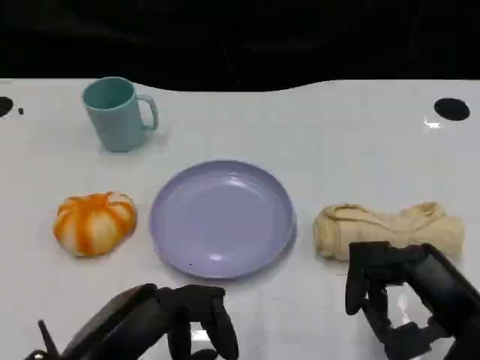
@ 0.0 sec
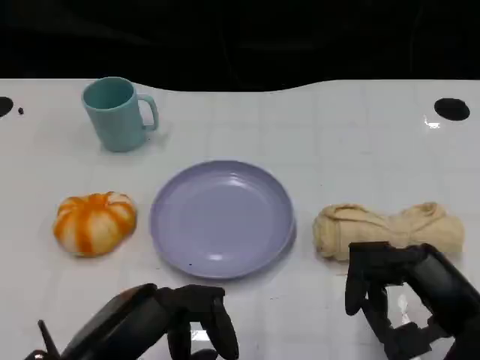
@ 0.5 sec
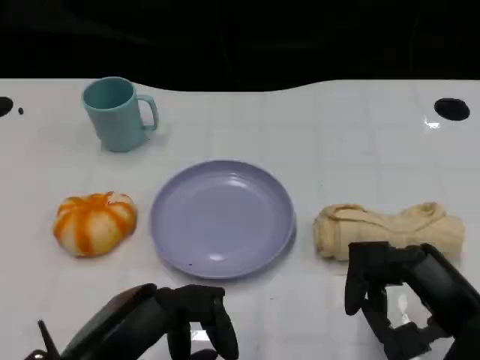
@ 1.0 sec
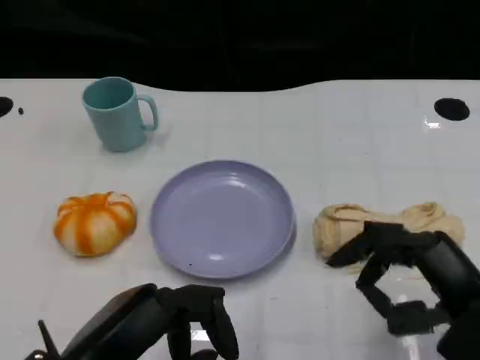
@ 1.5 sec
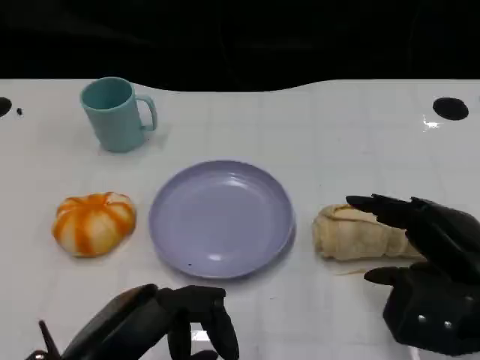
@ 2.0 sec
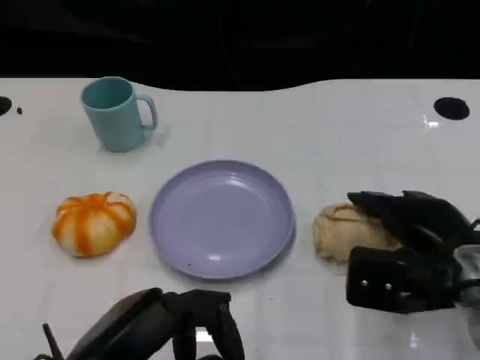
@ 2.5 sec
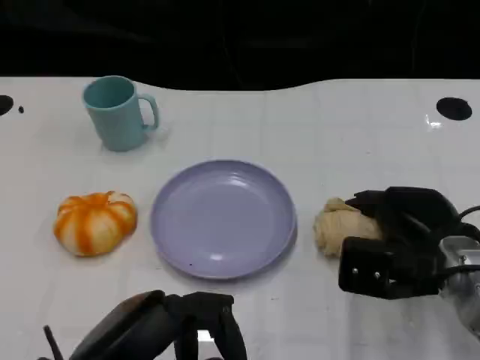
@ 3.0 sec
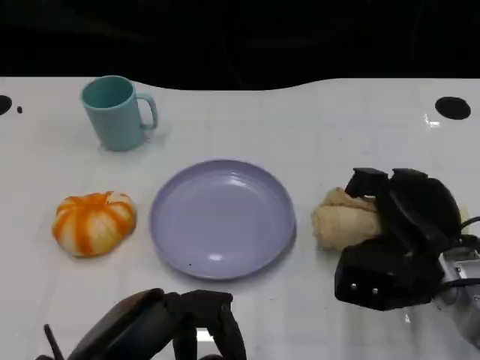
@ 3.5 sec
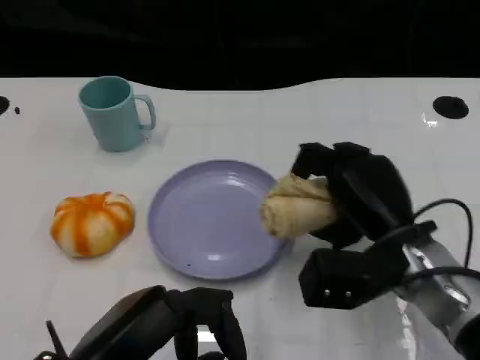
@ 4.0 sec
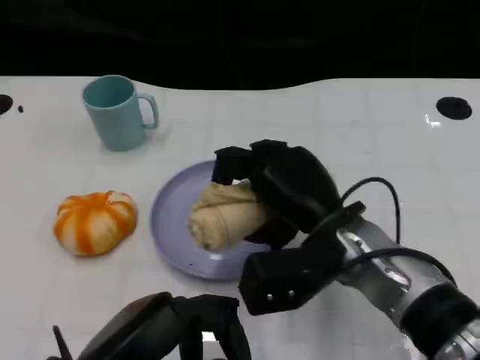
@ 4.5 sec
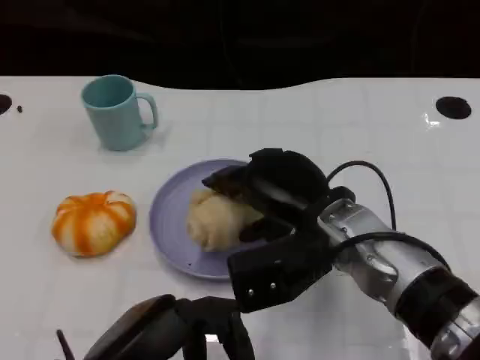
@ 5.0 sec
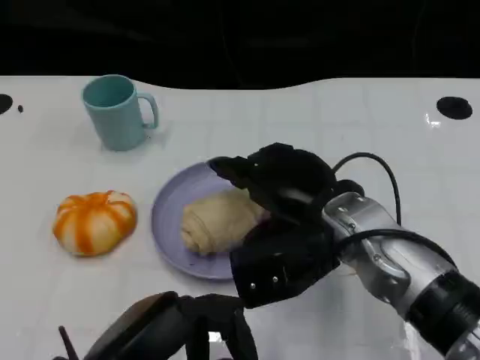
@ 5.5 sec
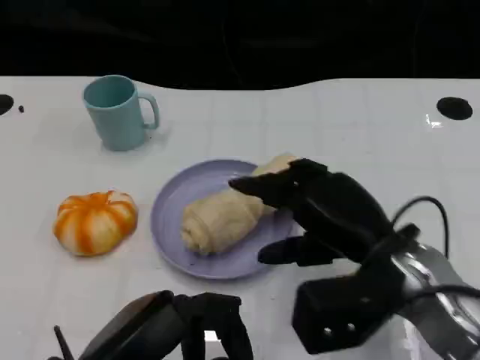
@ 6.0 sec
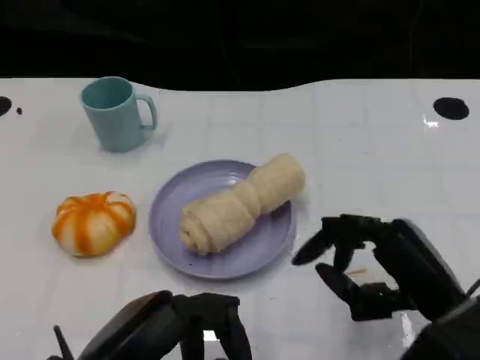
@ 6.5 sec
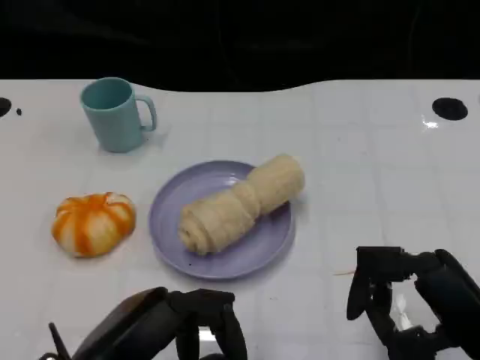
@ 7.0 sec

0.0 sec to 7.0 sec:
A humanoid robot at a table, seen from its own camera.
Task of the whole recording: Grasp the towel on the left side of the plate with the left hand and place it into the plate.
2.0 sec to 3.5 sec: The right hand shifts about 10 cm forward and downward.
3.5 sec to 5.0 sec: The right hand is displaced to the left and upward by approximately 10 cm.
5.0 sec to 7.0 sec: The right hand heads to the right and backward, covering roughly 20 cm.

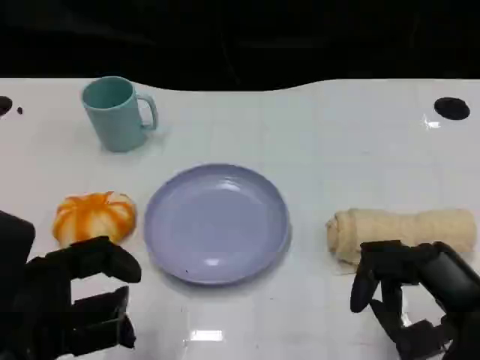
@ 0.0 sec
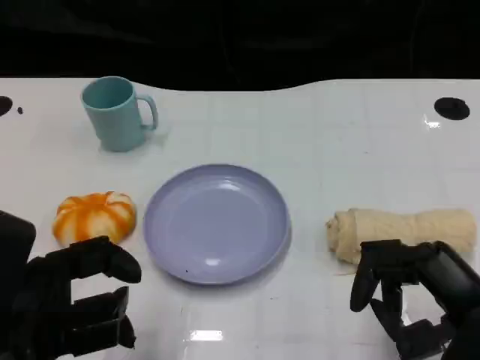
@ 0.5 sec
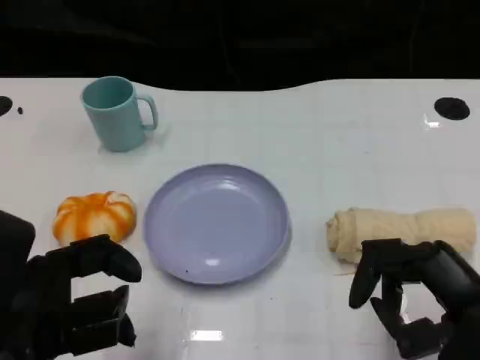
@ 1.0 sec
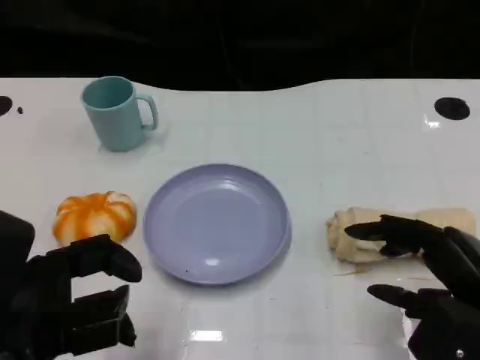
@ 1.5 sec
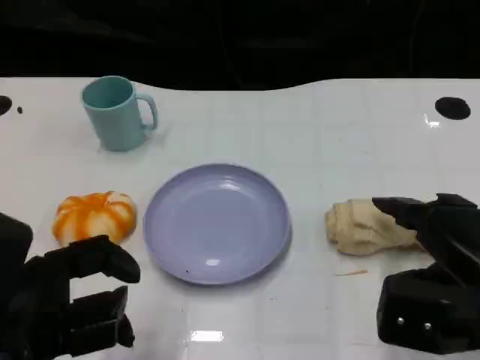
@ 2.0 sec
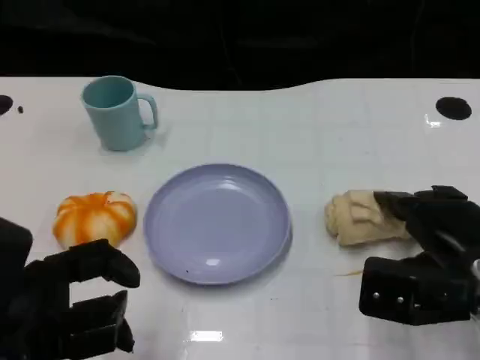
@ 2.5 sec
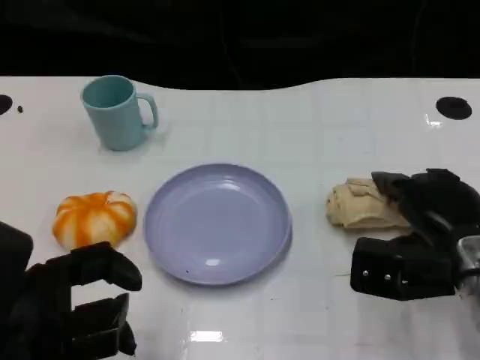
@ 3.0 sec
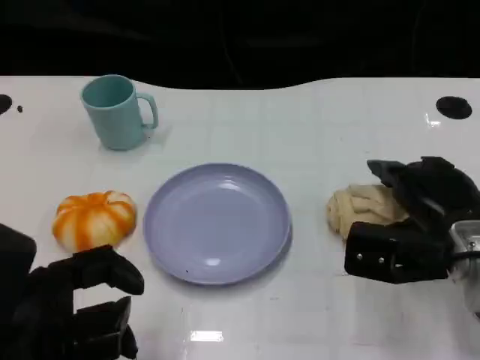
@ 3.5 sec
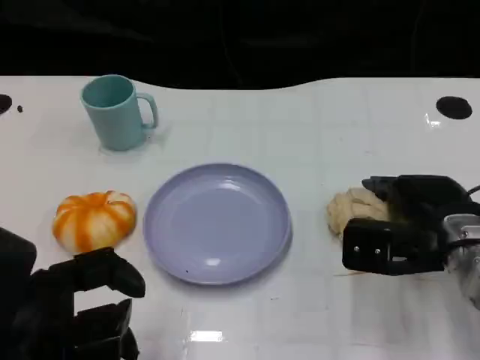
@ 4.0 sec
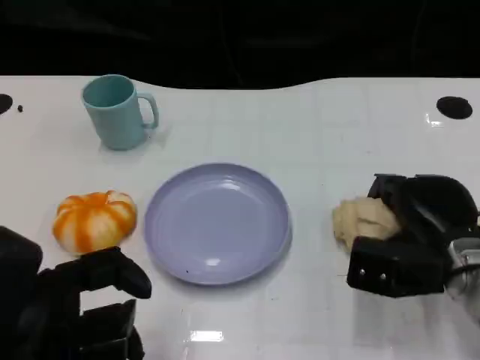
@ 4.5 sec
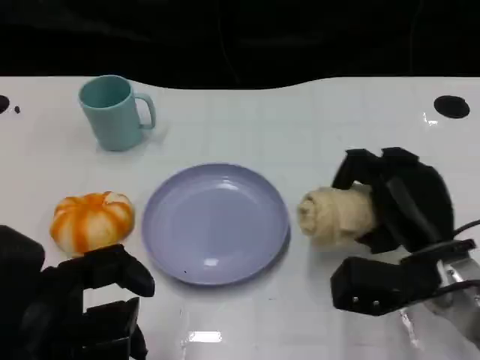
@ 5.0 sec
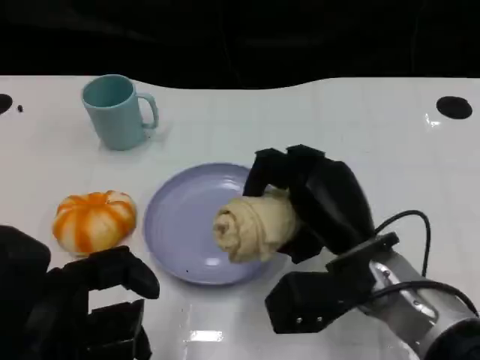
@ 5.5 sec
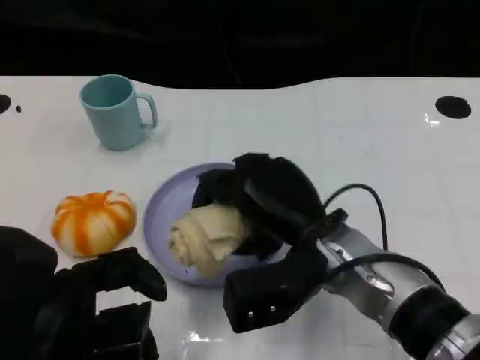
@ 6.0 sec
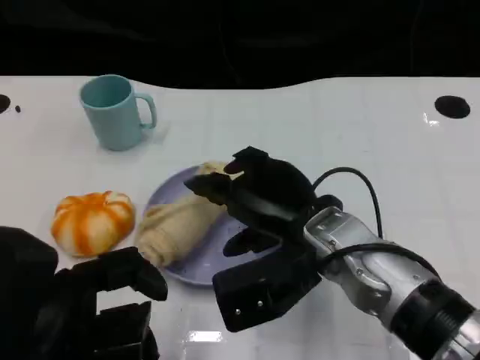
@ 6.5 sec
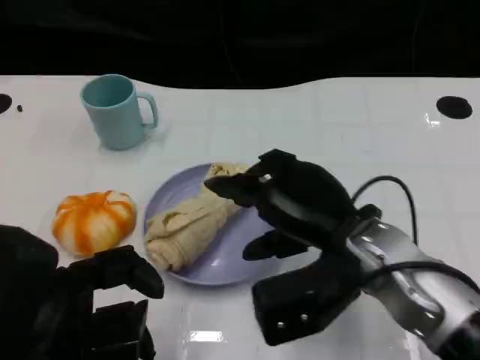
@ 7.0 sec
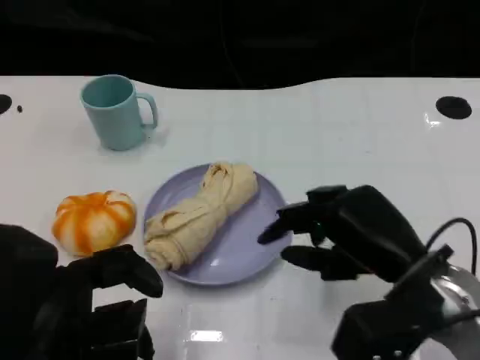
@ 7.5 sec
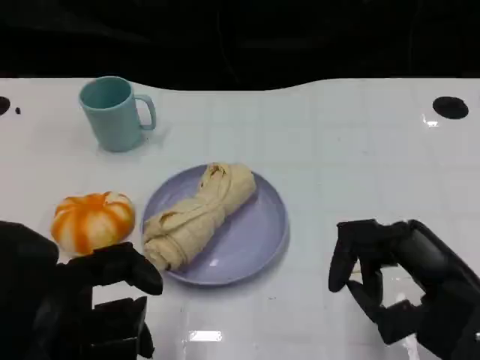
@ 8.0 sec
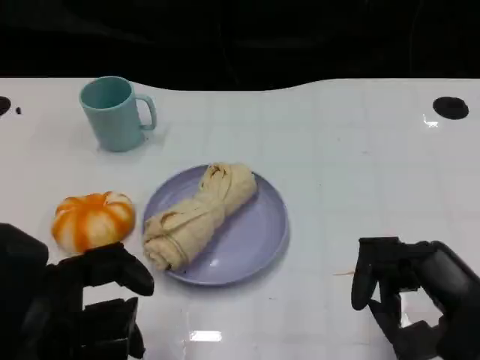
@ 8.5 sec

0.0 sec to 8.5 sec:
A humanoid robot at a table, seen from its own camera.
Task of the whole recording: Grasp the towel on the left side of the plate with the left hand and place it into the plate.
2.0 sec to 4.0 sec: The right hand goes some 10 cm forward.
4.0 sec to 6.5 sec: The right hand is displaced to the left by about 15 cm.
6.5 sec to 8.5 sec: The right hand moves to the right and backward, roughly 20 cm.

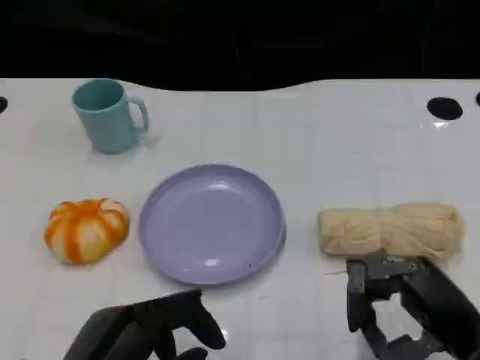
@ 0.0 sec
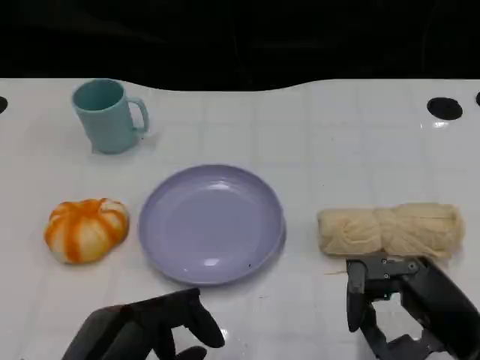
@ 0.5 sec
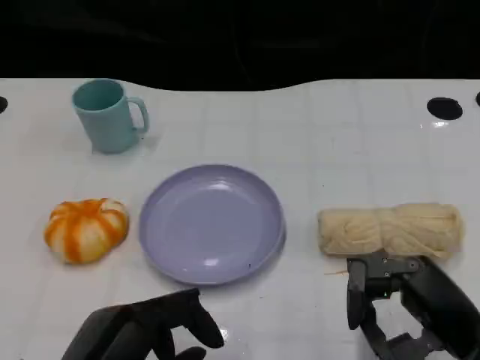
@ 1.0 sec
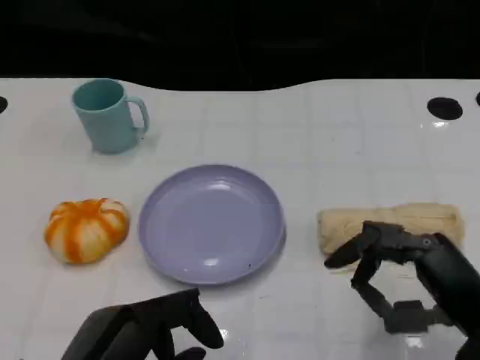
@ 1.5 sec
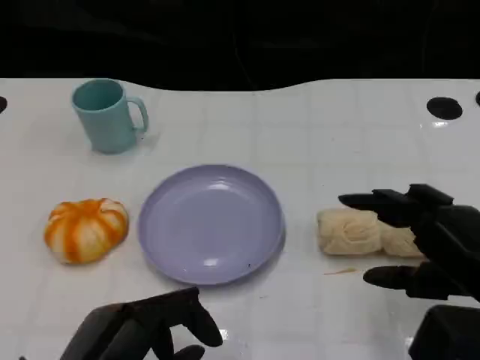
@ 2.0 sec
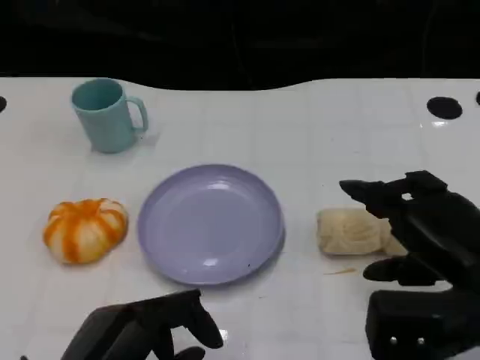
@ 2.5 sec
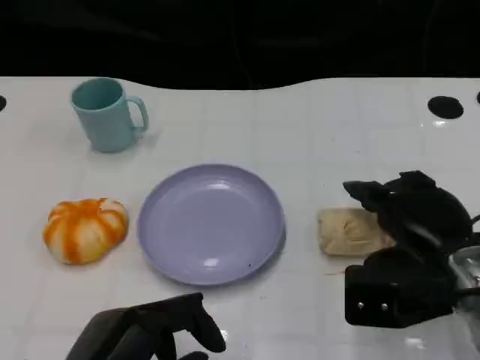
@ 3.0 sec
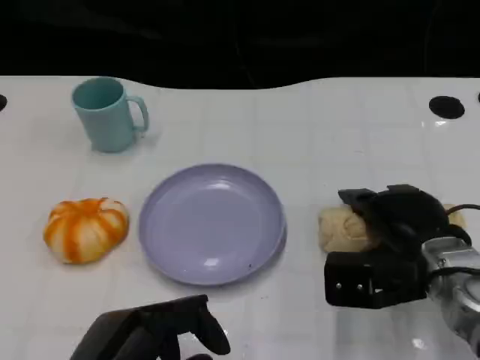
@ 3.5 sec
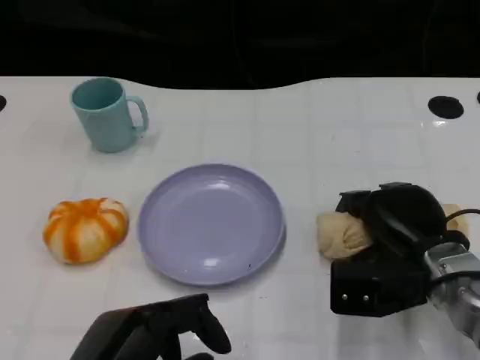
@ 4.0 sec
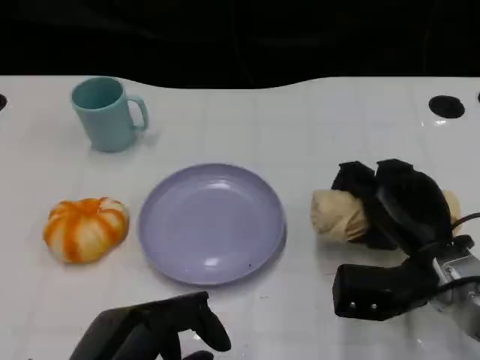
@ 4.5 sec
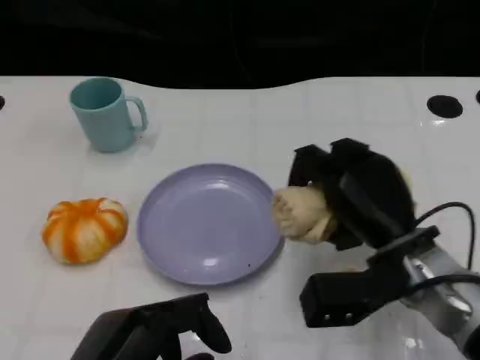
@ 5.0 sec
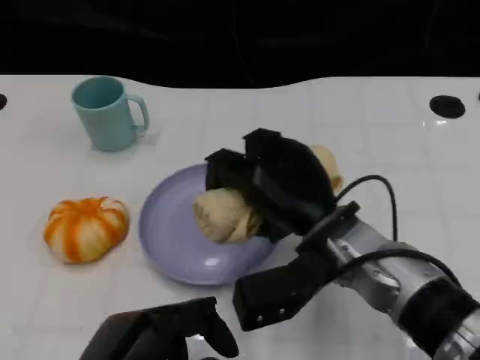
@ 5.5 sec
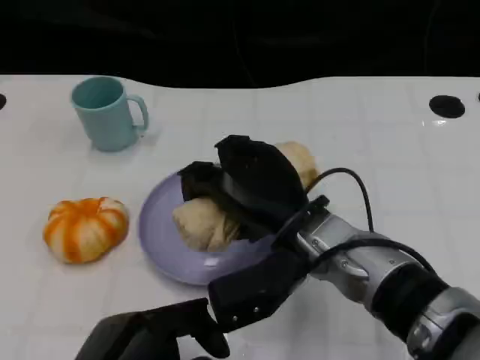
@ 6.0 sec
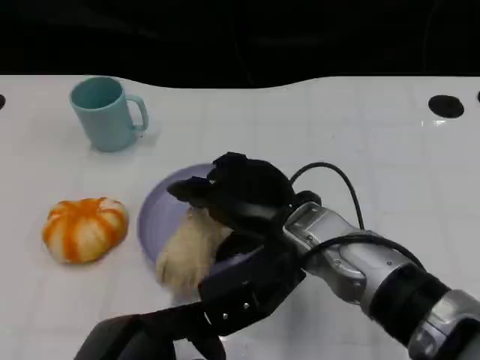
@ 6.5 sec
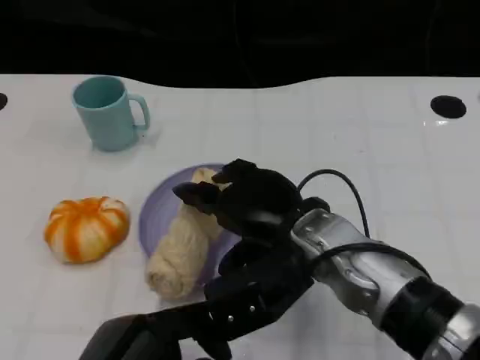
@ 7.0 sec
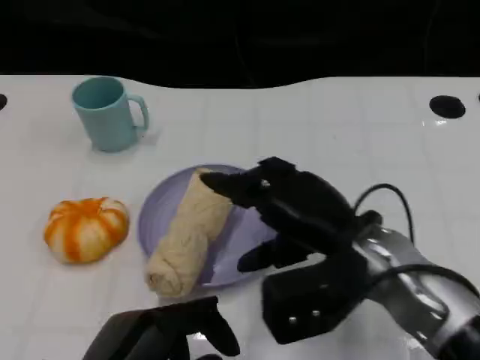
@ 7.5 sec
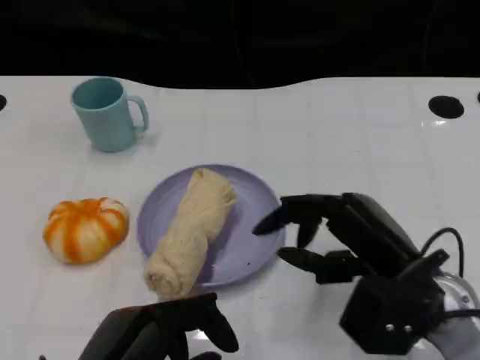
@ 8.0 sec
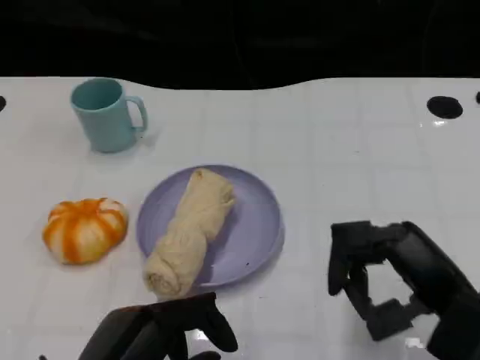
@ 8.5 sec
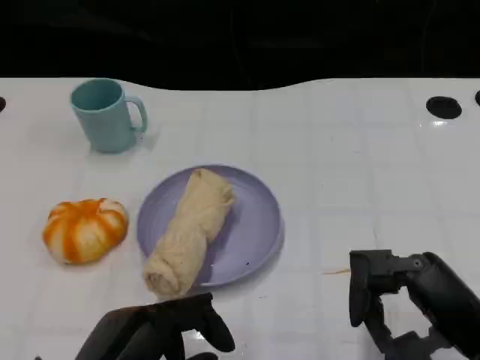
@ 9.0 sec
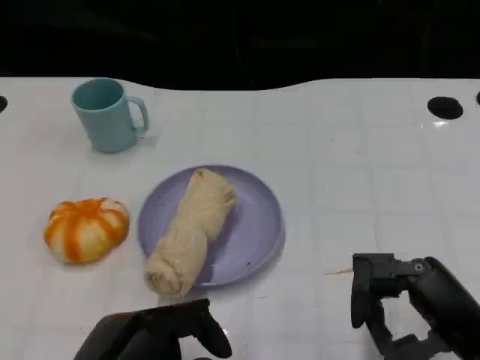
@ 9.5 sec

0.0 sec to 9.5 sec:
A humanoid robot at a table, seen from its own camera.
Task of the whole recording: Grasp the towel on the left side of the plate with the left hand and place it into the plate.
0.0 sec to 2.0 sec: The right hand changes place by some 5 cm.
2.0 sec to 4.0 sec: The right hand goes roughly 15 cm forward, downward and to the left.
4.0 sec to 5.5 sec: The right hand moves to the left and upward, approximately 10 cm.
7.5 sec to 9.5 sec: The right hand goes about 15 cm to the right and backward.
